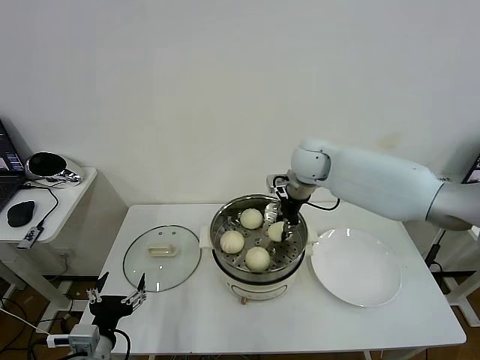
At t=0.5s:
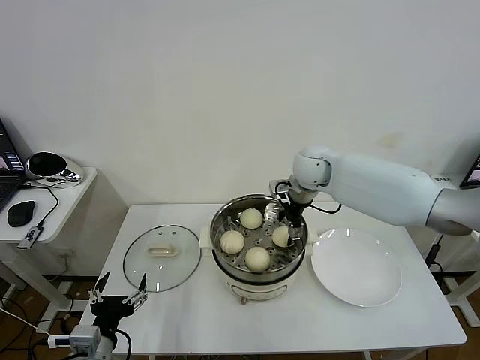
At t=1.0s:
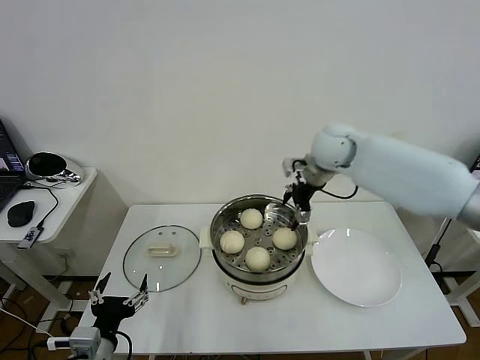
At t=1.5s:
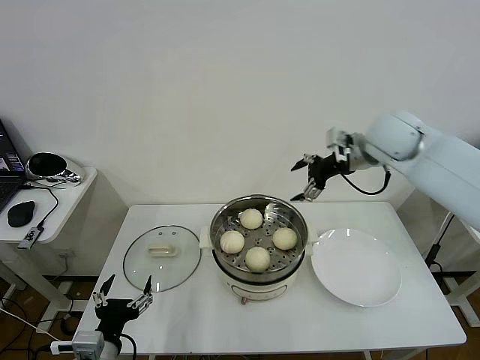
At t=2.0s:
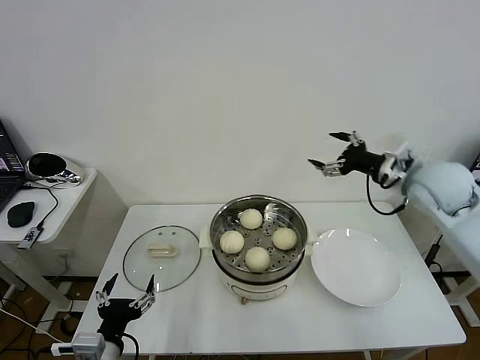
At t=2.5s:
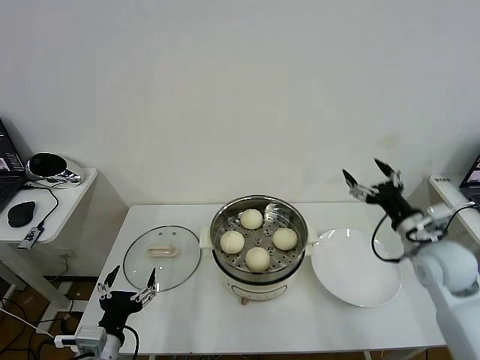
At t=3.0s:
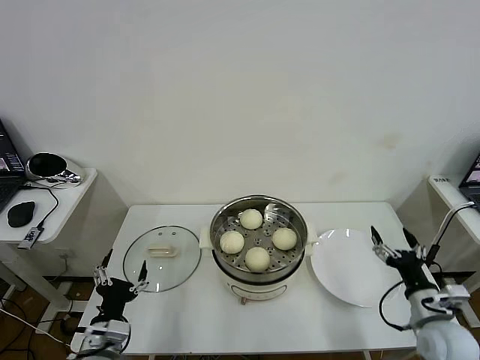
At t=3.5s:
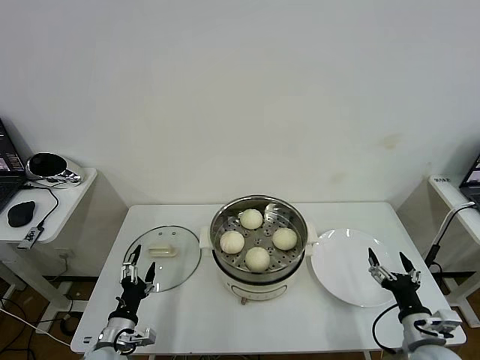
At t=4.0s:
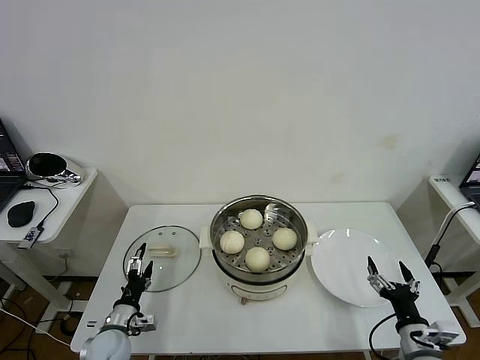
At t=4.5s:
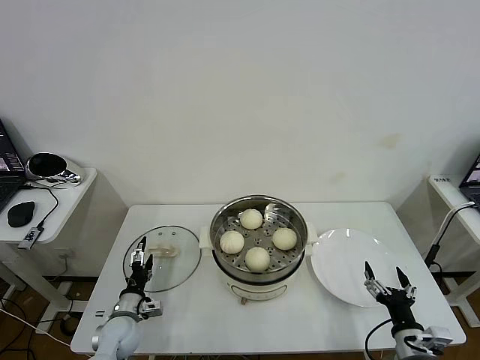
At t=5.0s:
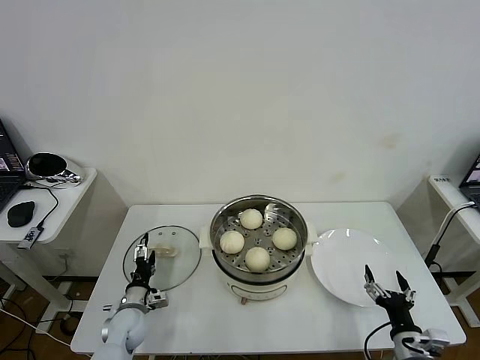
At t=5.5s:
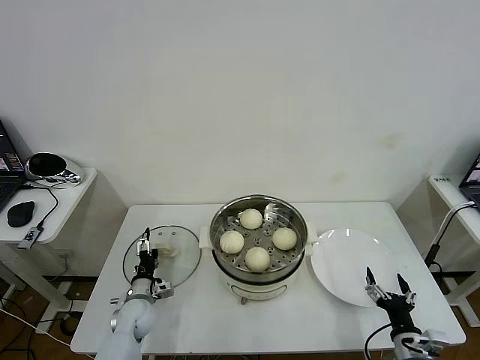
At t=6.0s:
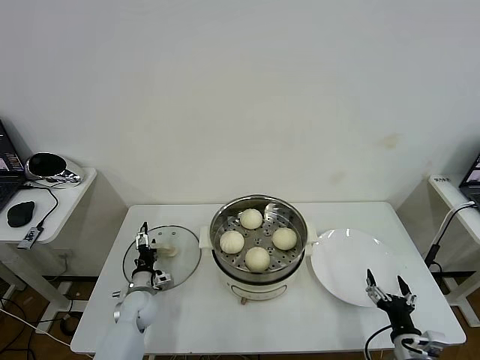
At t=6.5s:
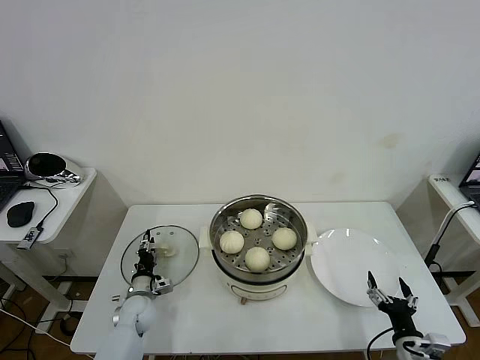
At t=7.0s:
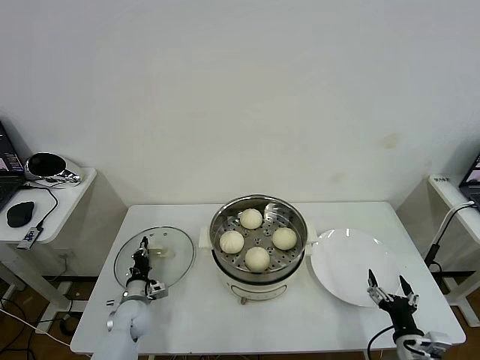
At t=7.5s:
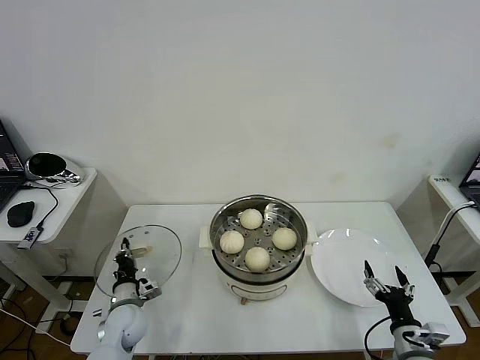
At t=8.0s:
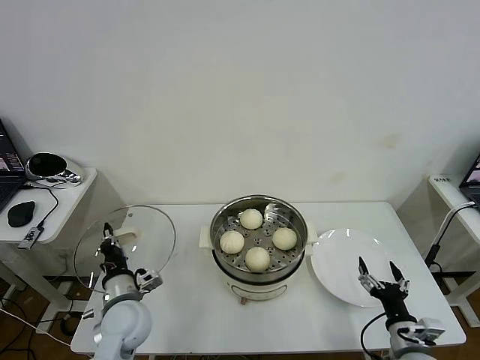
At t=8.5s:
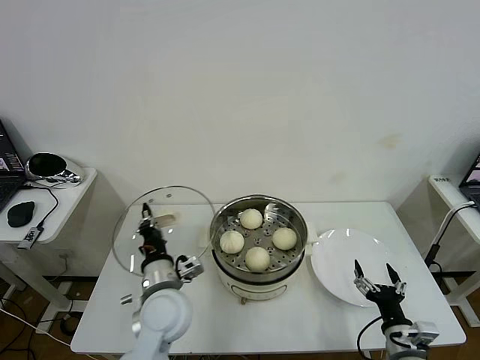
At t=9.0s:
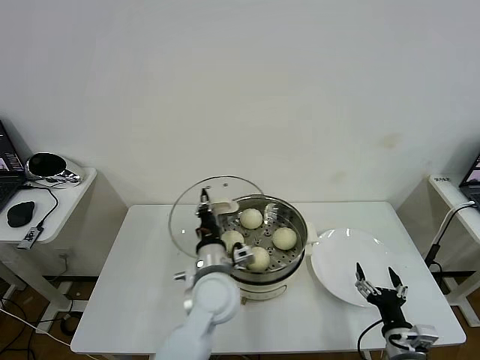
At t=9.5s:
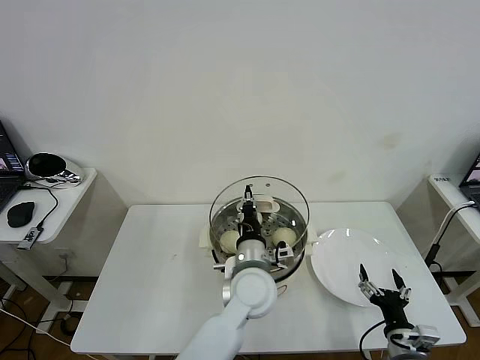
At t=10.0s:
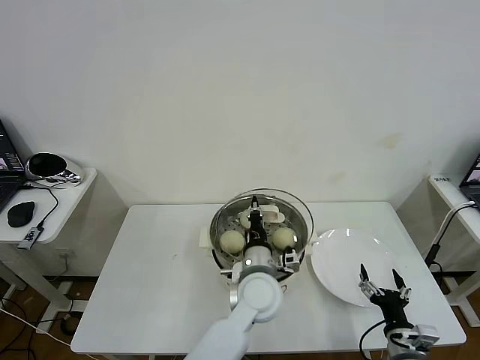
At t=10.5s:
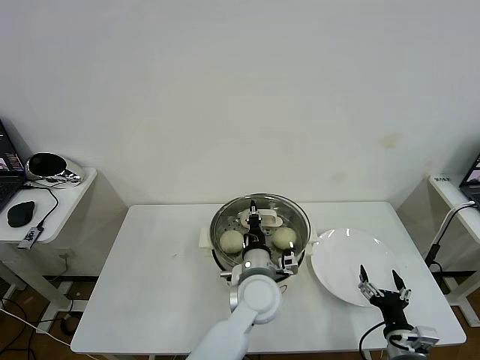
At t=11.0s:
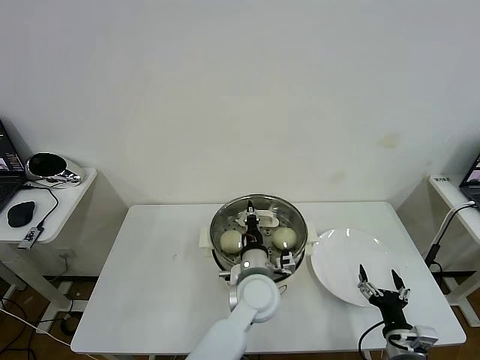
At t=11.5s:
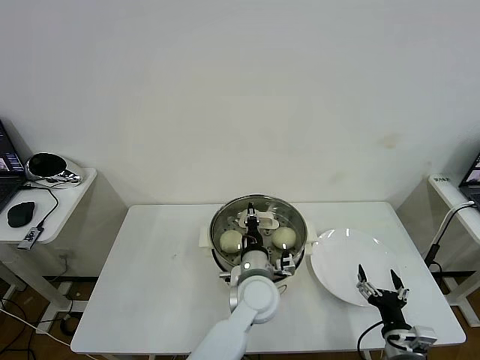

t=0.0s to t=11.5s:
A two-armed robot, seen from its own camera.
Task of the whole recording: take steamed baozi put them in steamer then cover it.
Step, t=1.0s to t=7.0s: Grasp the pot lid with left gripper.
t=0.0s to t=2.0s: The right gripper heads to the right and backward, covering roughly 25 cm, and opens its fingers.
t=2.0s to t=4.0s: The left gripper goes about 20 cm downward and forward. Meanwhile the right gripper shifts about 35 cm downward and backward.
t=4.0s to t=6.0s: The left gripper moves forward, roughly 10 cm.
t=6.0s to t=7.5s: The left gripper changes place by some 5 cm, and closes its fingers.
t=7.5s to t=9.5s: The left gripper heads to the right and upward, covering roughly 35 cm.
t=9.5s to t=11.5s: The grippers stay close to where they were, moving slightly.

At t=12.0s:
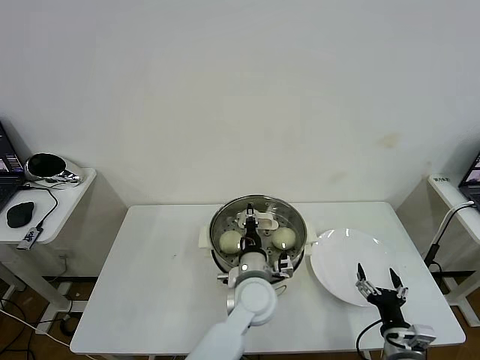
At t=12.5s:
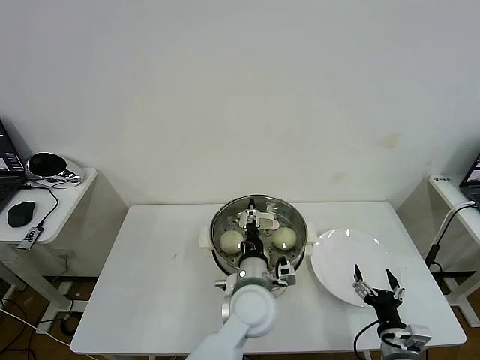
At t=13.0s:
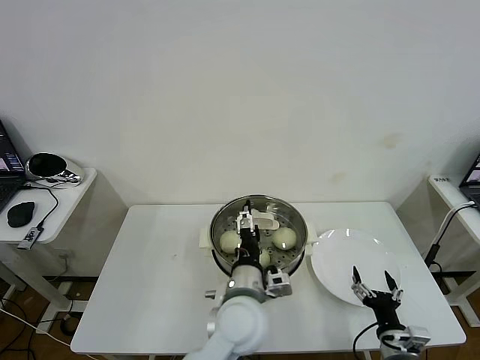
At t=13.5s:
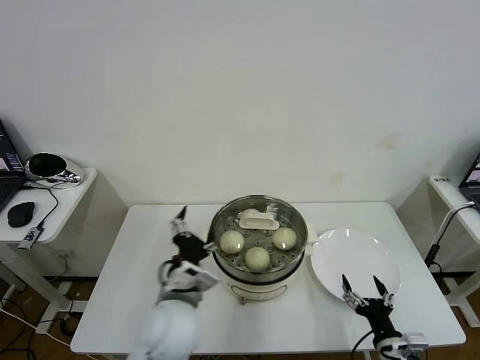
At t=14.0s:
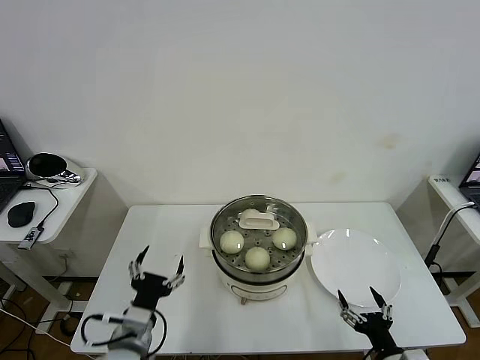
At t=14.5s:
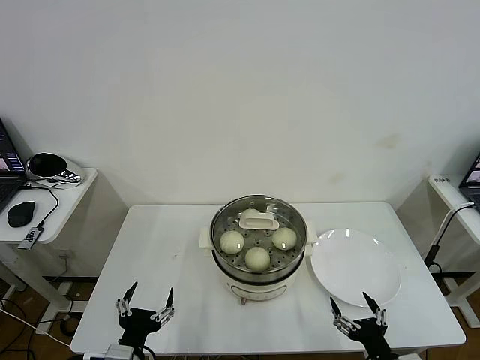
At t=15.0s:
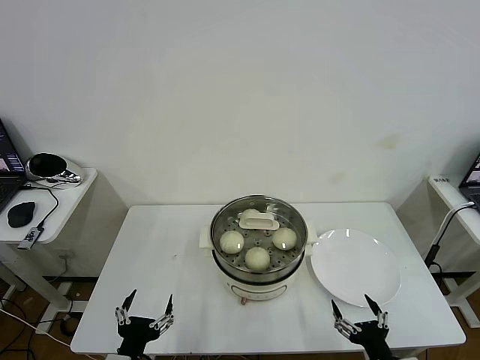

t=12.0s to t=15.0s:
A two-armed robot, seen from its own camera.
Task of the whole recording: take steamed baozi put them in steamer then cover it.
t=12.0s to t=13.5s: The left gripper shifts some 15 cm to the left, backward and upward, and opens.
t=13.5s to t=15.0s: The right gripper goes some 5 cm backward. Meanwhile the left gripper goes roughly 20 cm backward, to the left and downward.
